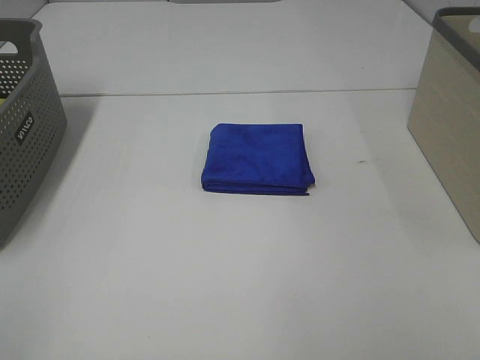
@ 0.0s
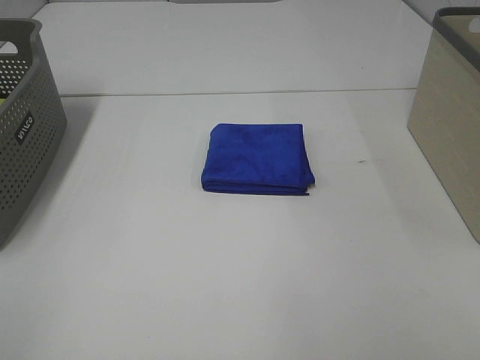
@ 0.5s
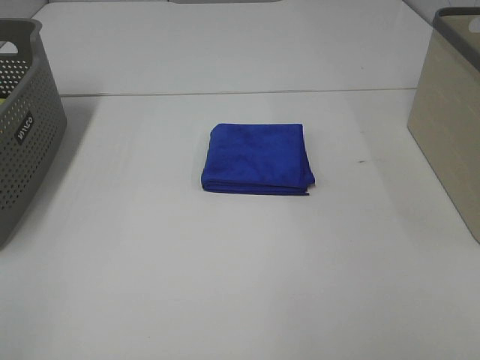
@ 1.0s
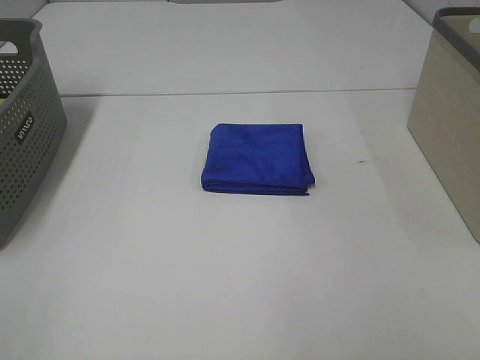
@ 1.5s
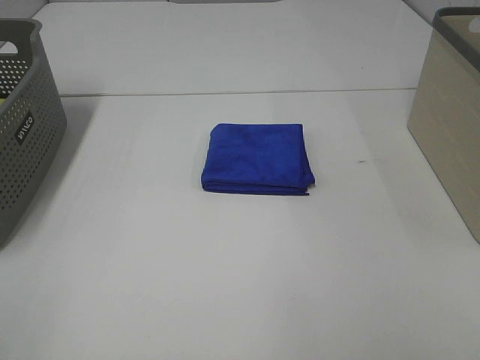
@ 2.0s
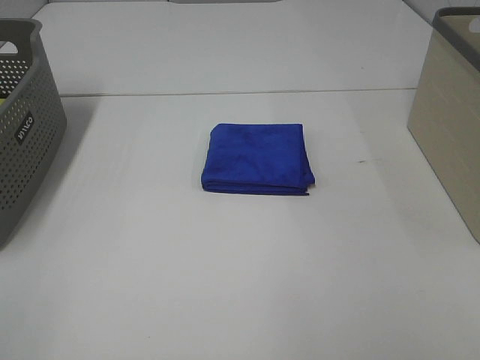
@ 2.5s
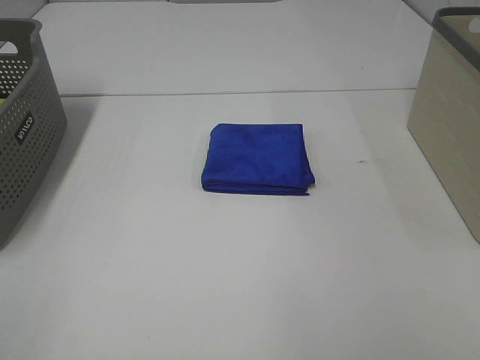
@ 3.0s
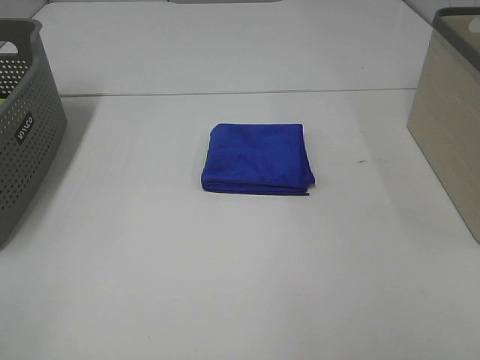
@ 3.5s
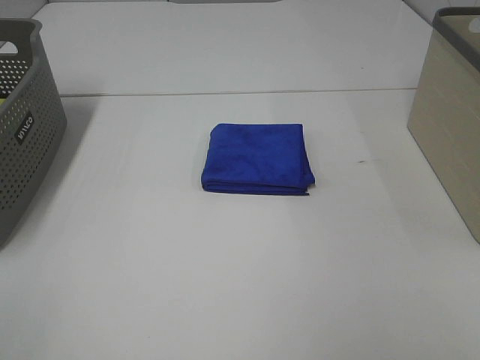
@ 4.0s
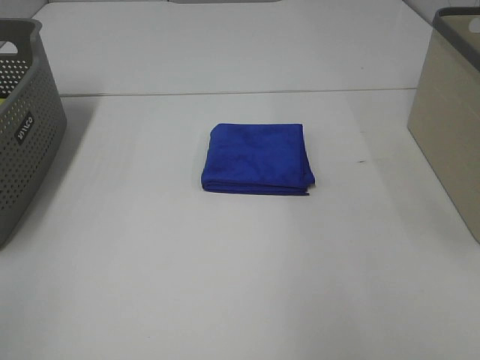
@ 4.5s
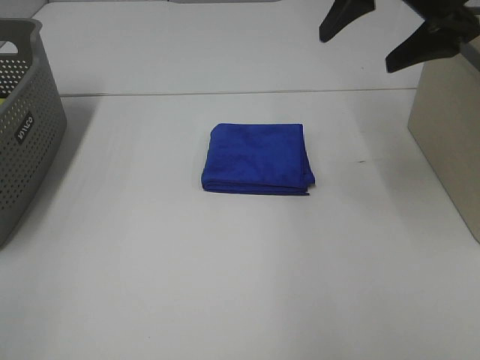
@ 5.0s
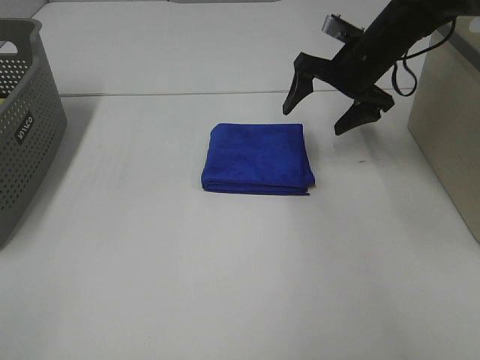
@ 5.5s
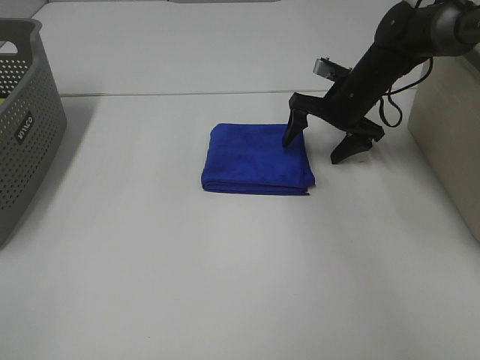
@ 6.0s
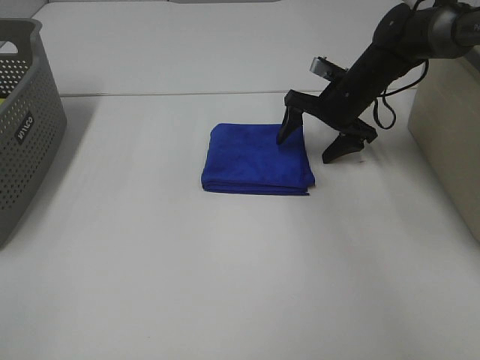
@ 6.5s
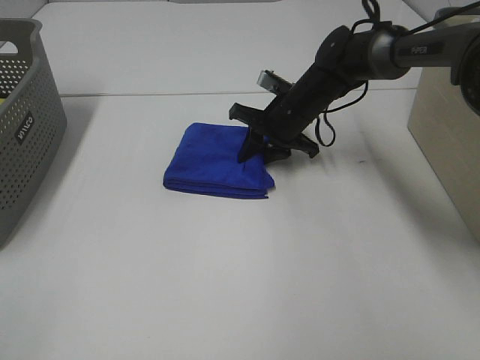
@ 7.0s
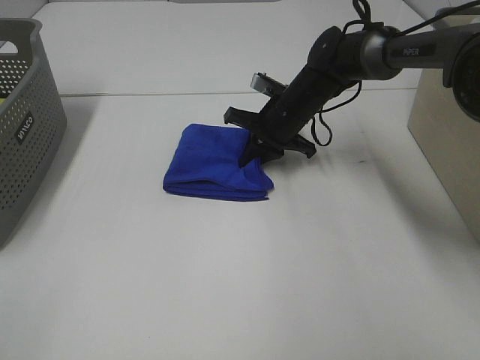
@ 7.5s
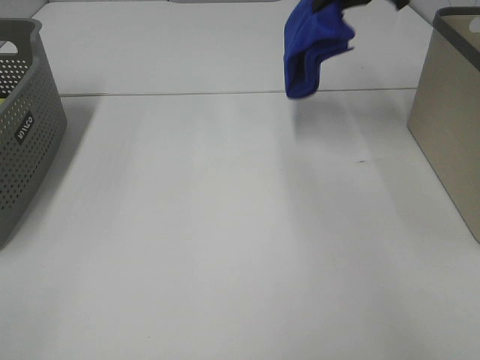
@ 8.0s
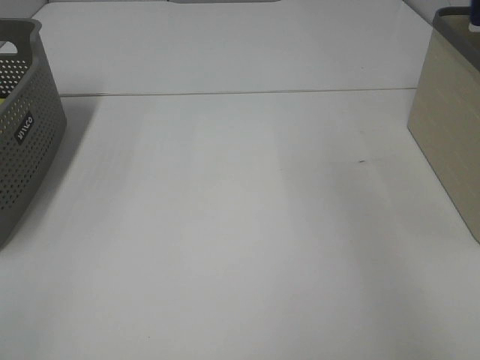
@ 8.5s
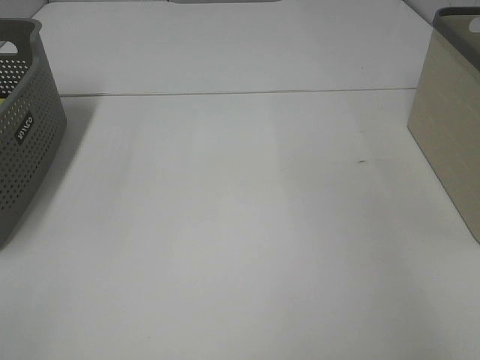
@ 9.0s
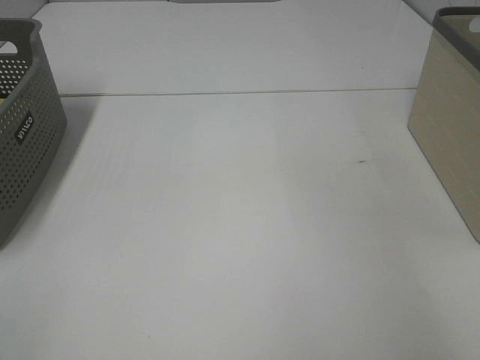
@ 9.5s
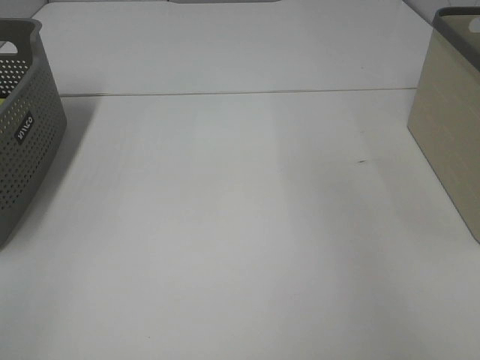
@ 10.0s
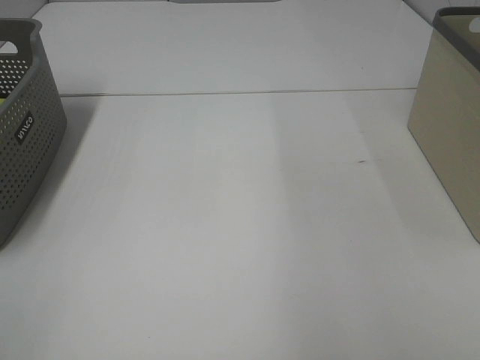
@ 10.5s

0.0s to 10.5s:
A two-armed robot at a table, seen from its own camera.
Step, 0.0s to 7.0s: Right hand: grab the folded blue towel.
Step, 7.5s to 9.5s: Right hand: place the blue towel in right basket.
0.0s to 2.0s: Neither gripper changes place.
4.0s to 6.5s: The right gripper heads forward and downward, covering some 50 cm.
6.5s to 8.5s: The right gripper travels upward and to the right by roughly 40 cm, and closes.

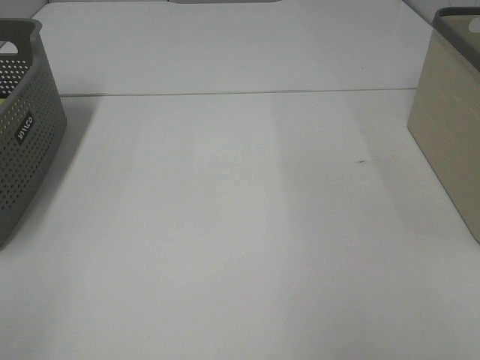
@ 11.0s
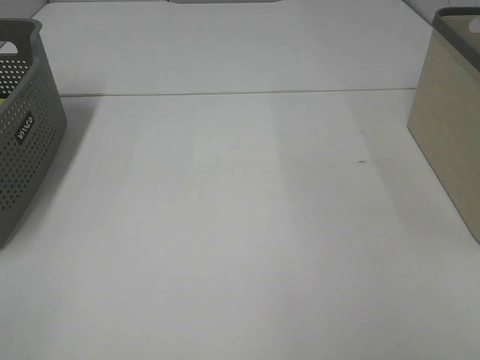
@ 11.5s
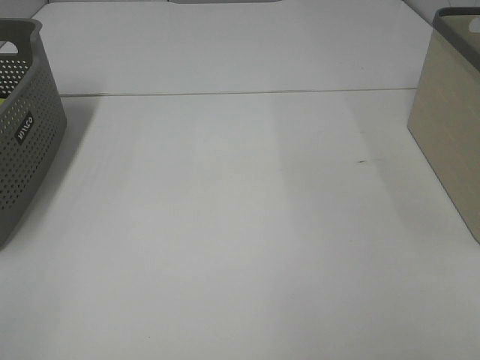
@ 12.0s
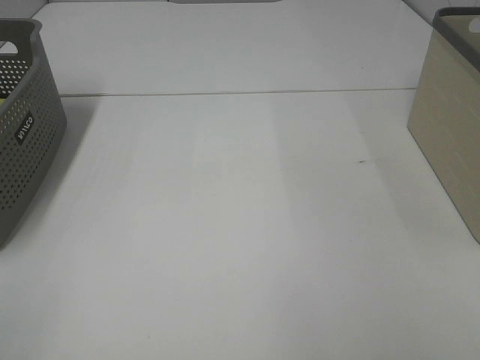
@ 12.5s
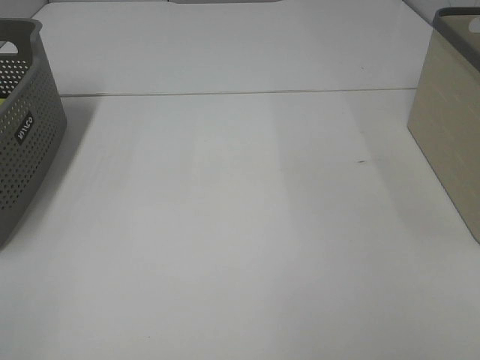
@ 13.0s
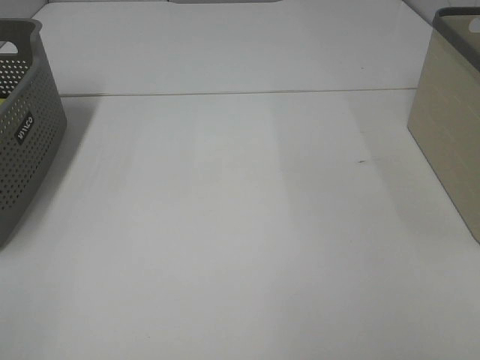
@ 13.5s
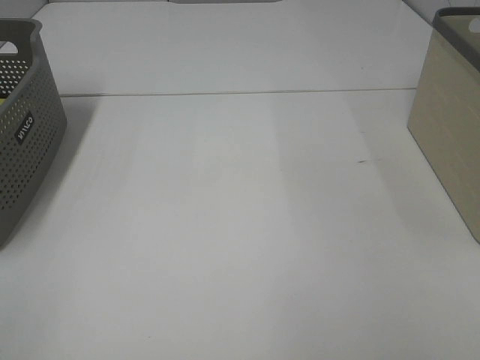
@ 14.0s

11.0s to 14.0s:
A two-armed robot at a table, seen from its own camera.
12.5s to 14.0s: Both grippers stay about where they are.

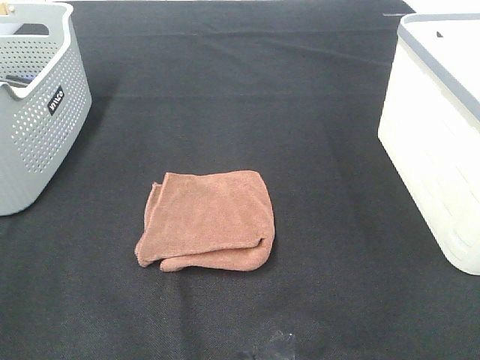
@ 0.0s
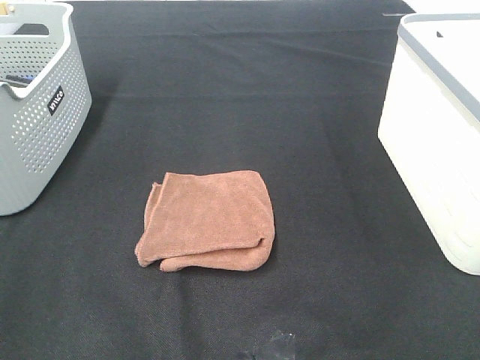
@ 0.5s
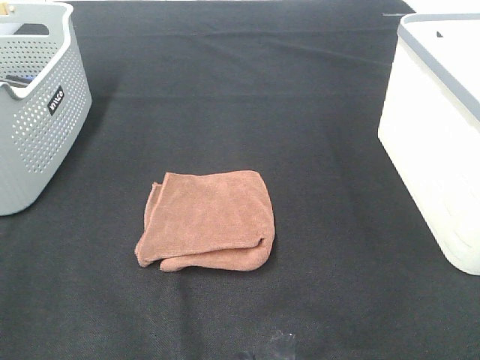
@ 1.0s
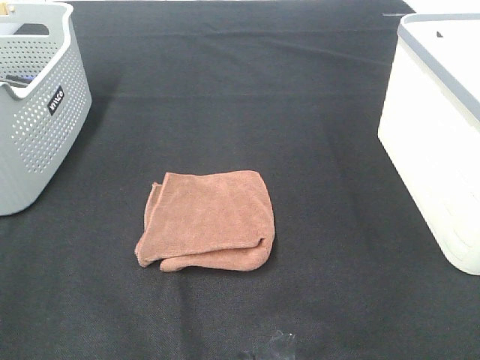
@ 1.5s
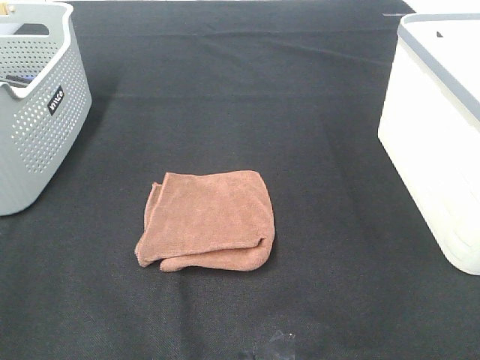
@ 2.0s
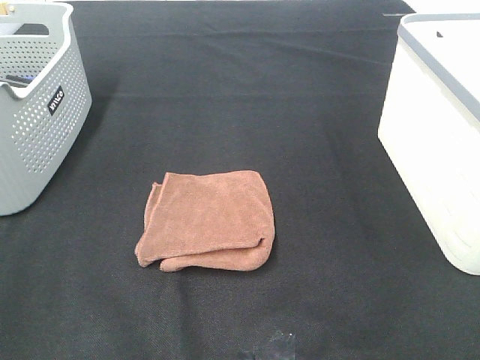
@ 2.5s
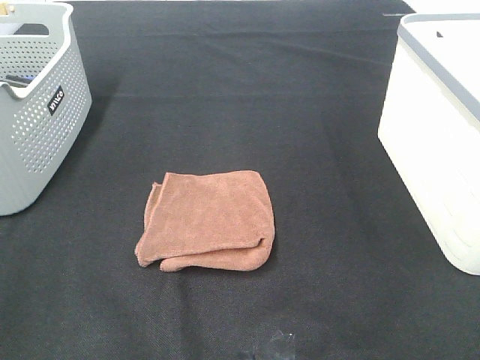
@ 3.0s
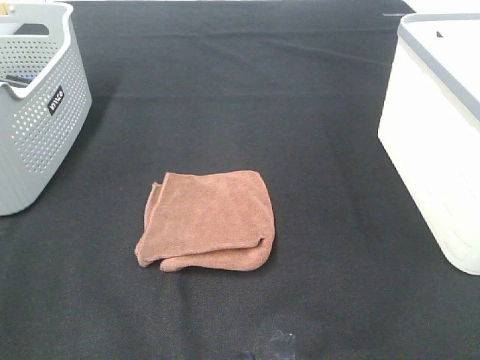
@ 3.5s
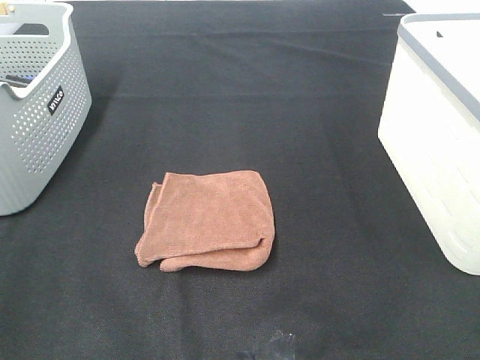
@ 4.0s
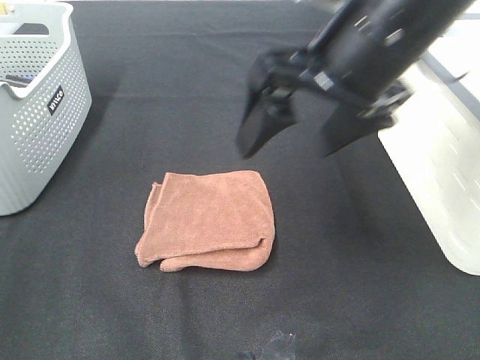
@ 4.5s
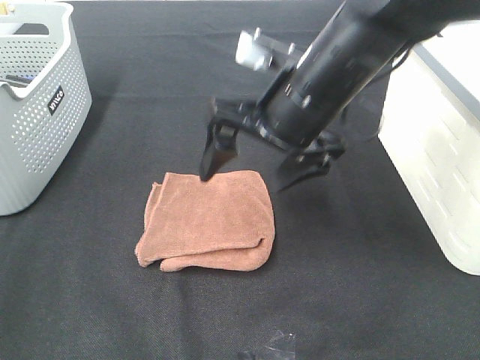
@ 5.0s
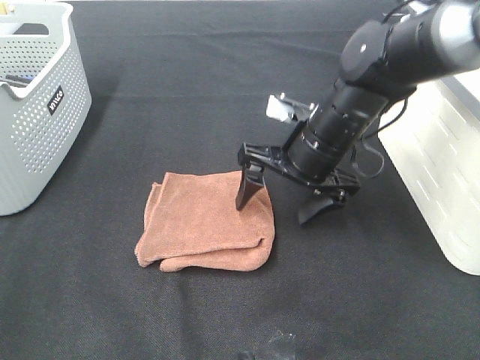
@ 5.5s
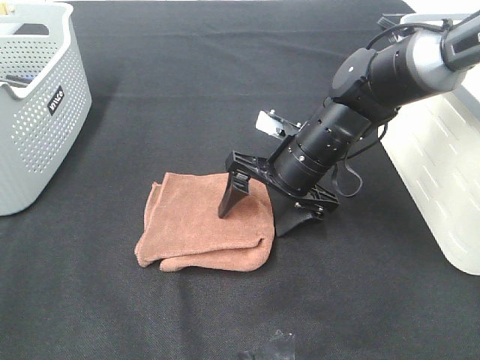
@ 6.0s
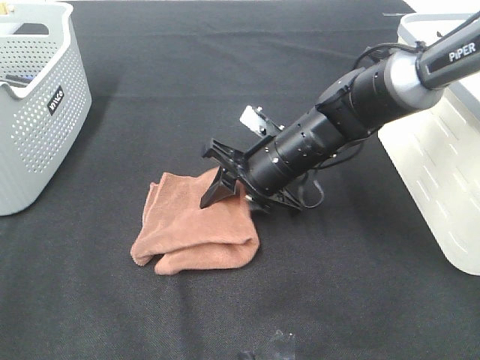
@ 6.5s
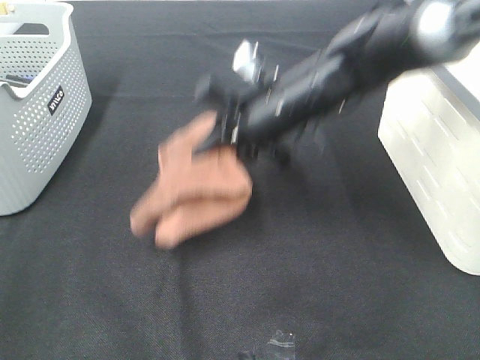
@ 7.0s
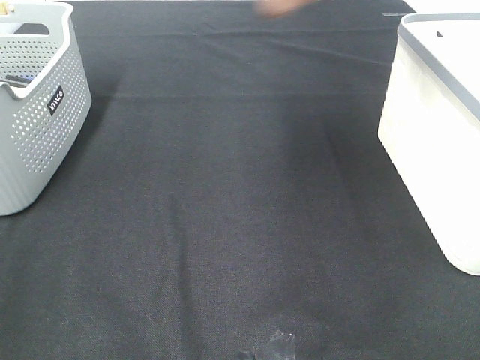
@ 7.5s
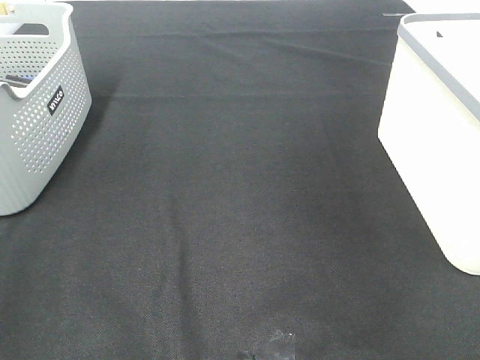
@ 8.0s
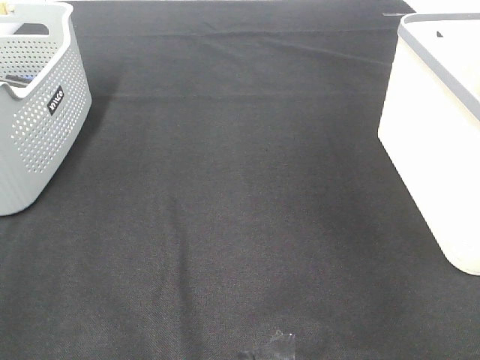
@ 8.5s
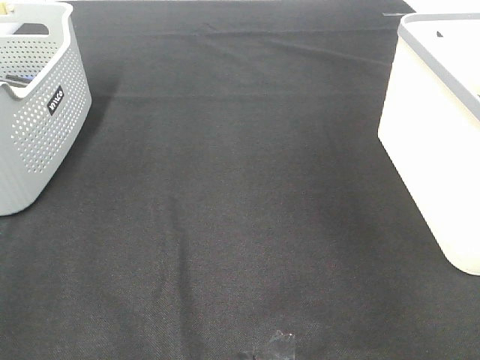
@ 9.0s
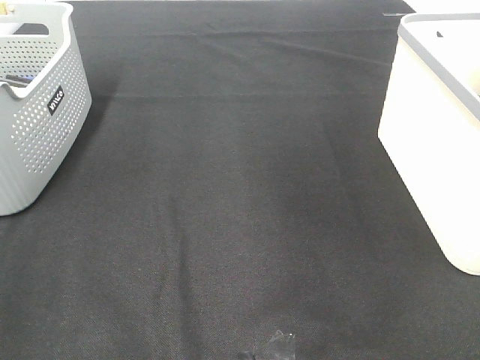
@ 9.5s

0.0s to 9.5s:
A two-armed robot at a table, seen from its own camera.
Step, 0.0s to 6.5s: Right hand: grab the folded brown towel.
Step, 7.0s to 9.0s: Right hand: place the brown towel in right basket.
0.0s to 2.0s: Both grippers stay put.
4.0s to 5.5s: The right gripper goes roughly 35 cm downward, forward and to the left.
5.5s to 7.5s: The right gripper goes approximately 30 cm upward, and closes up.
7.5s to 9.5s: The right gripper travels to the right by some 5 cm, and opens up.

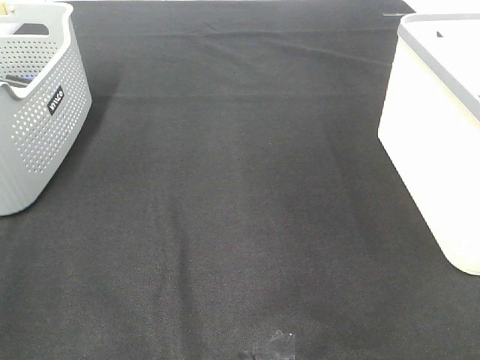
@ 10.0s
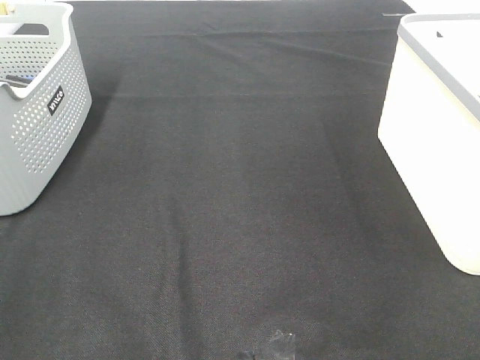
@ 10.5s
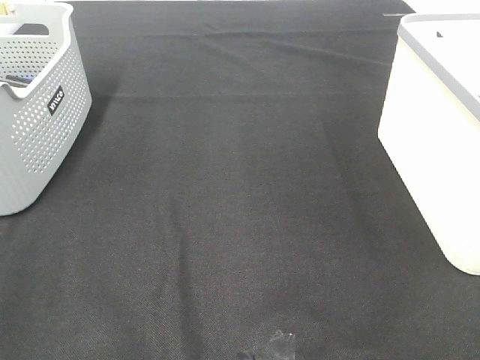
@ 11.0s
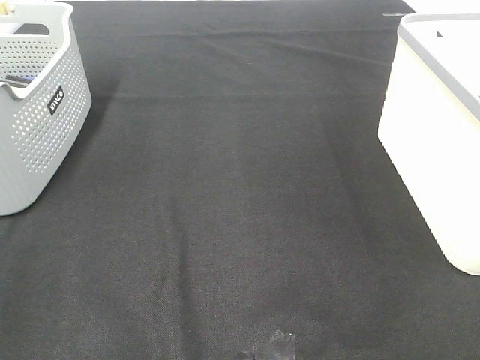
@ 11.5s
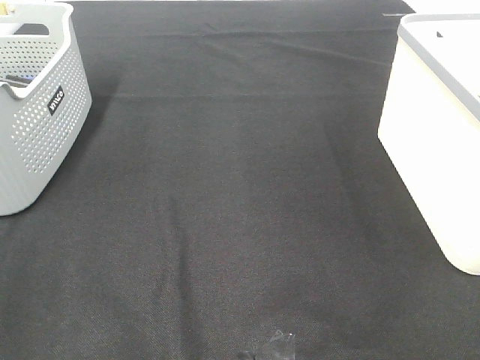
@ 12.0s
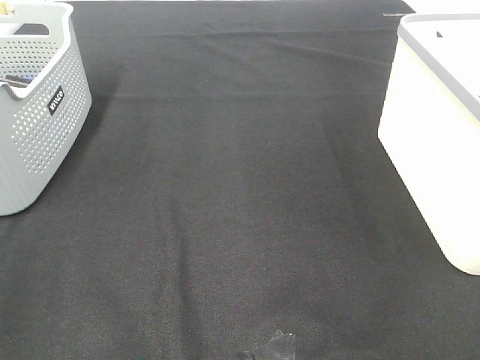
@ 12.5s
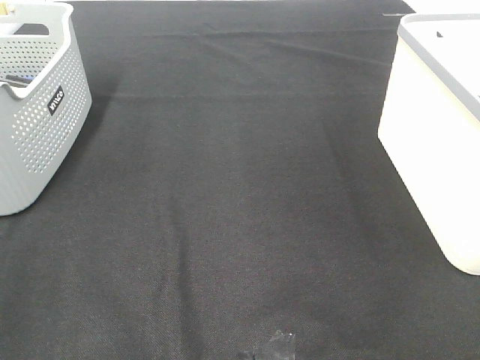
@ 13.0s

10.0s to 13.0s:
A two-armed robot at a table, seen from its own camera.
11.5s to 13.0s: The two grippers keep their place.
